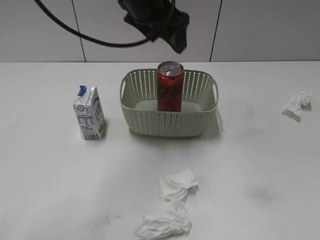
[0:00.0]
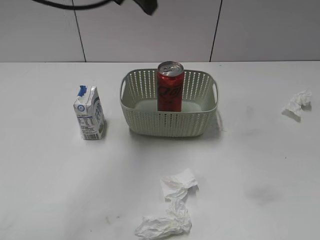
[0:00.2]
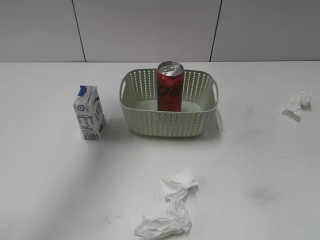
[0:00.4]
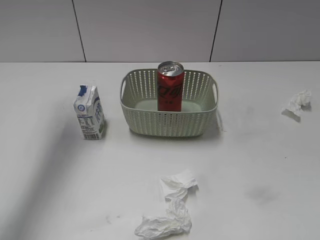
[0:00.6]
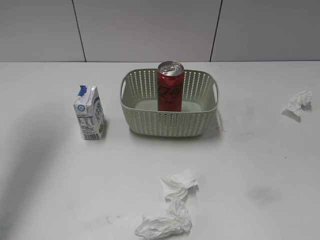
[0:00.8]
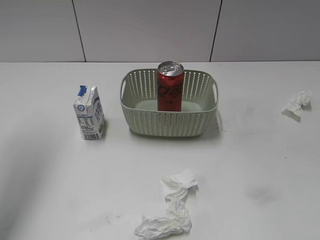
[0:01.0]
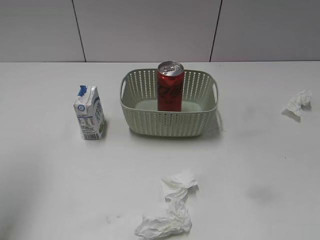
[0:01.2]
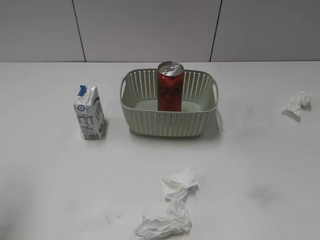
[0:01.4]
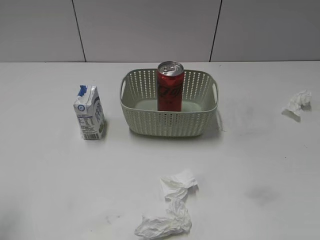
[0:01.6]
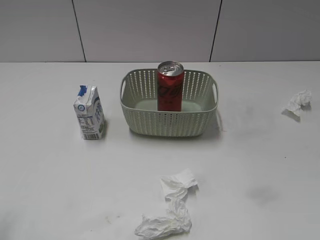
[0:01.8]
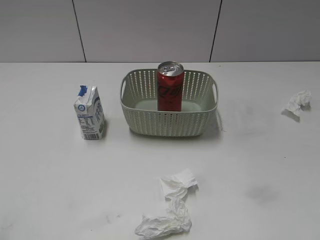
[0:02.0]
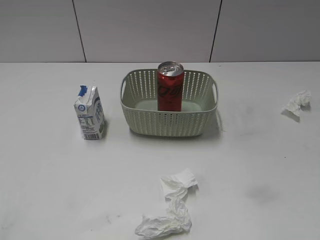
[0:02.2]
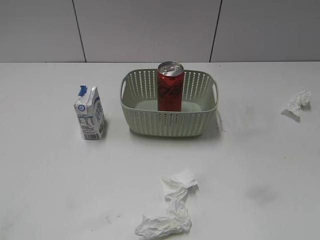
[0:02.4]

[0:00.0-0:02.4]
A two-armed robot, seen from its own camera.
0:00.0 to 0:01.2: The left gripper moves to the left and backward, some 30 cm.
0:01.2 to 0:02.4: The left gripper moves backward and downward, approximately 25 cm.
